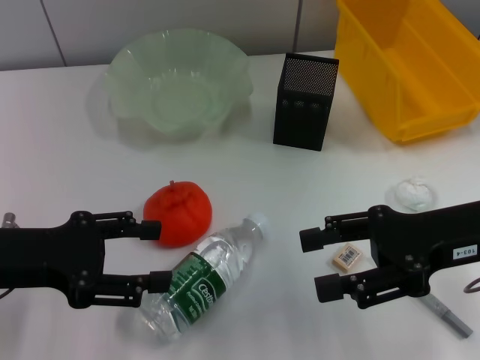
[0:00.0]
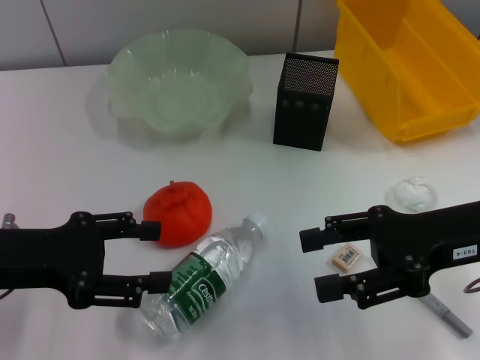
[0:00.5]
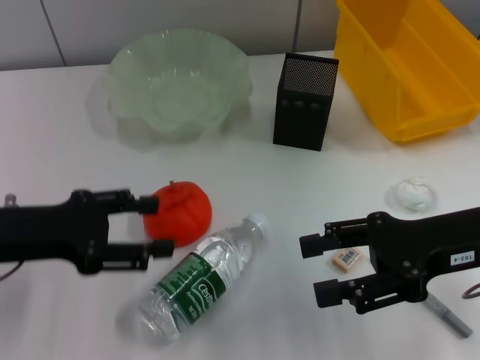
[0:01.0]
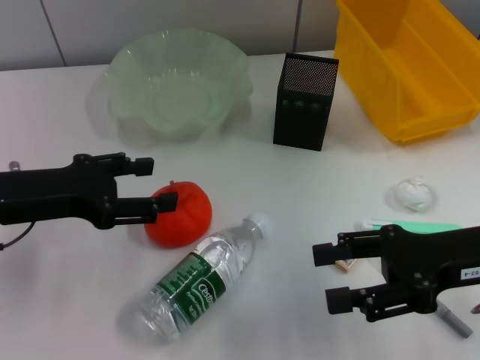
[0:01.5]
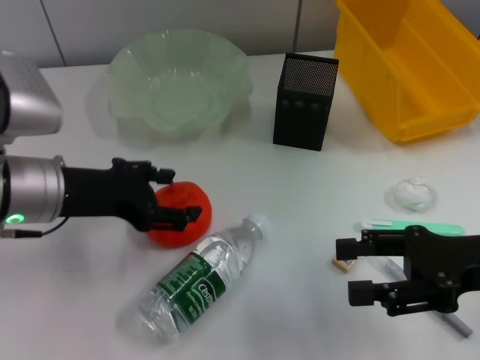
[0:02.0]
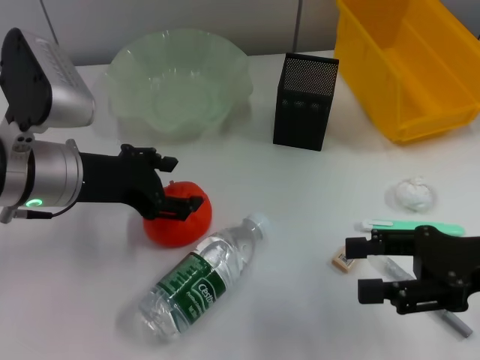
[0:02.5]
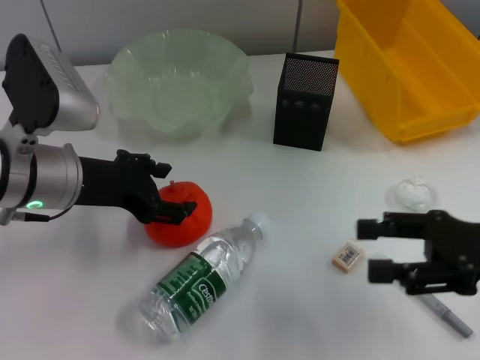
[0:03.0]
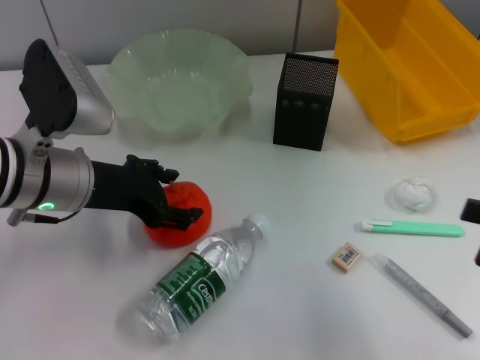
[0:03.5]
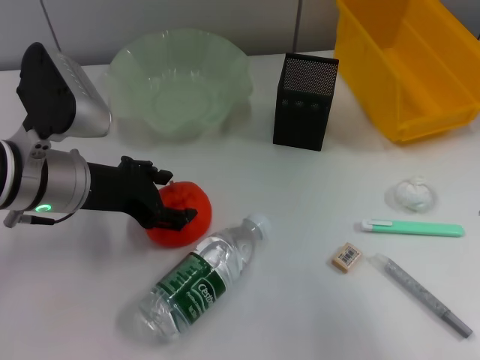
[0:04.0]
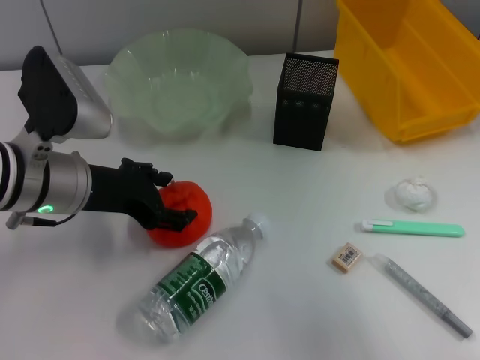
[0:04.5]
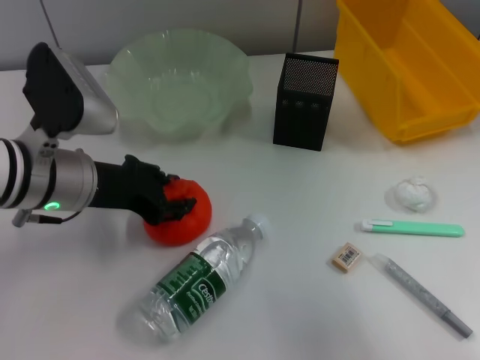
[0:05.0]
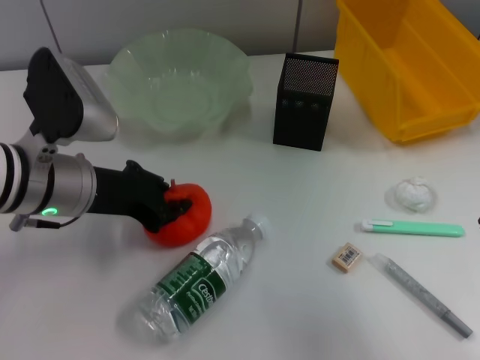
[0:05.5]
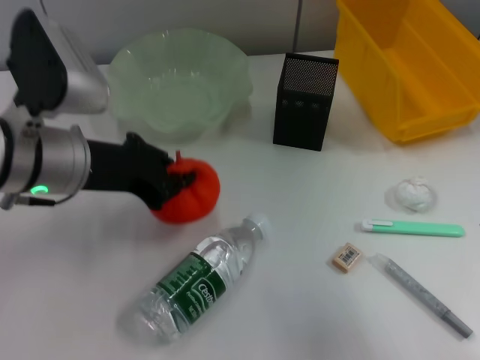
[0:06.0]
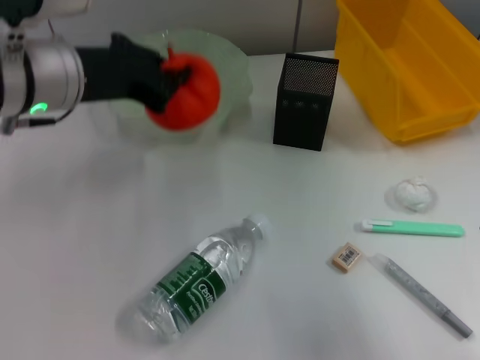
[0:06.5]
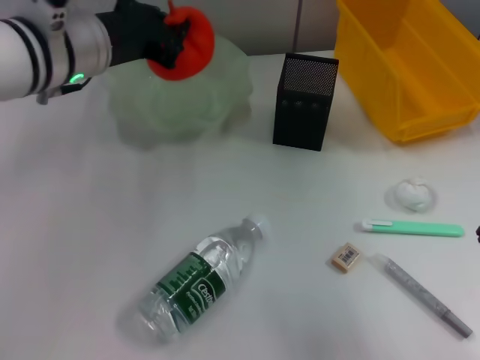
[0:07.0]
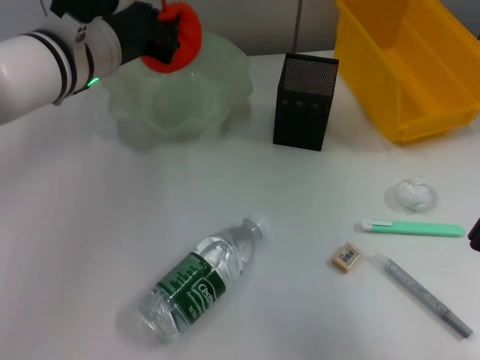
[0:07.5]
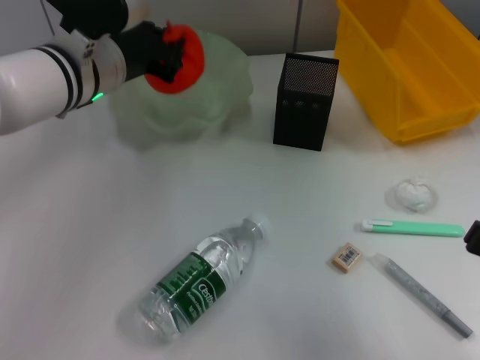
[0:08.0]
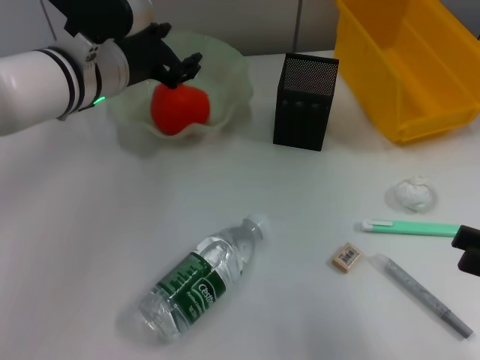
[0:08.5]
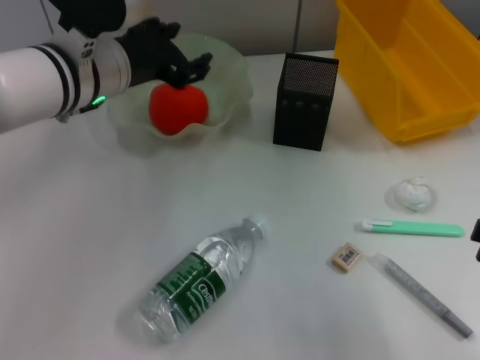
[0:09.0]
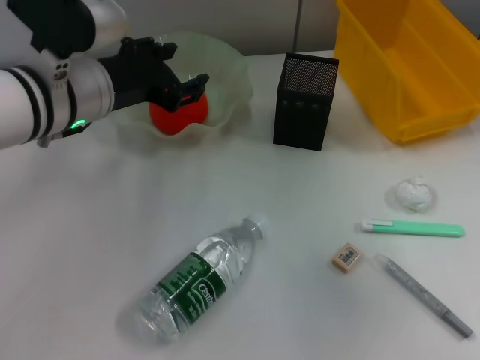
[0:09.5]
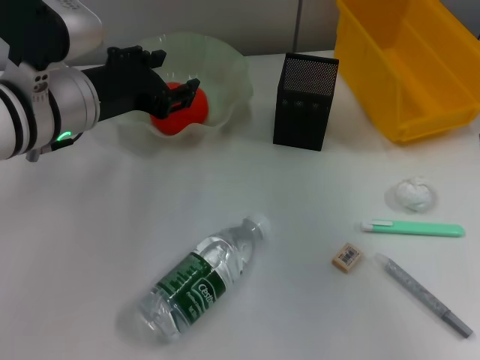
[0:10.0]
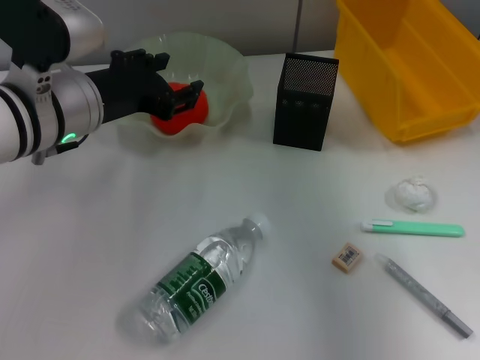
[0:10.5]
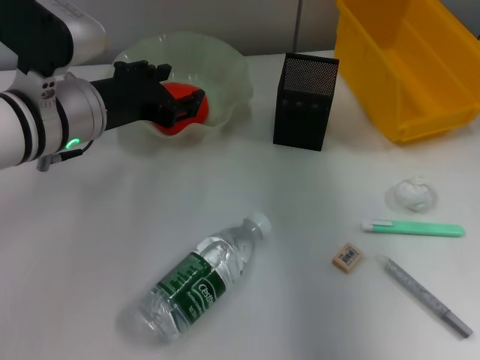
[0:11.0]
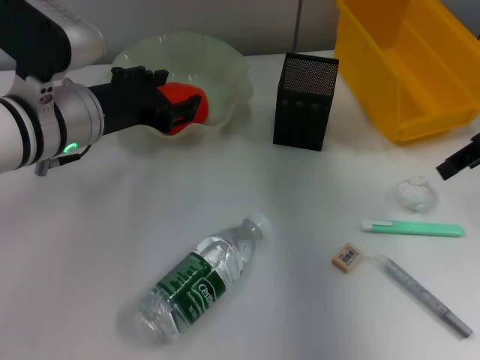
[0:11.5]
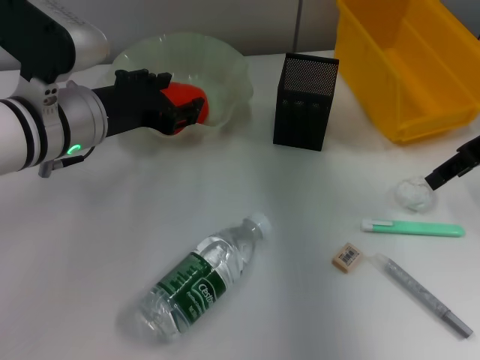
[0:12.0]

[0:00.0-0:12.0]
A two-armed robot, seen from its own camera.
Step, 0:00.0 to 0:05.0: Grab the orange with the left hand.
Step, 0:05.5 to 0:08.5: Place the orange into the fruit bowl with the left hand.
0:00.0 to 0:02.0: The left gripper moves to the right and forward, roughly 10 cm; the right gripper changes place by some 5 cm.
0:02.0 to 0:04.0: The right gripper shifts some 10 cm to the right and backward.
0:04.0 to 0:06.0: The right gripper closes, while the left gripper closes up.
0:06.0 to 0:08.0: The left gripper travels forward by approximately 10 cm.
0:08.0 to 0:10.0: The right gripper heads upward and forward, covering some 20 cm, and opens up. Meanwhile the left gripper goes some 5 cm backward, and opens up.
0:10.0 to 0:12.0: The right gripper moves forward, downward and to the left, about 15 cm.

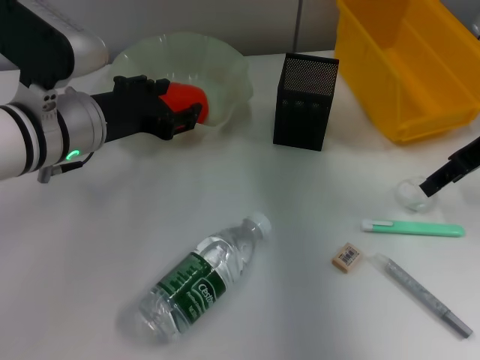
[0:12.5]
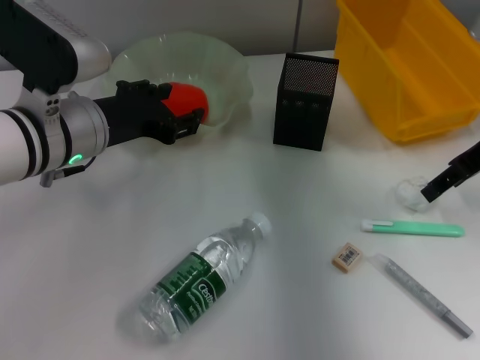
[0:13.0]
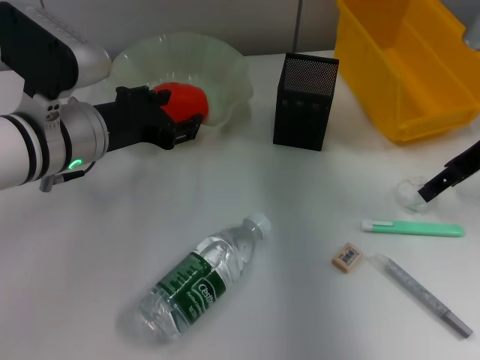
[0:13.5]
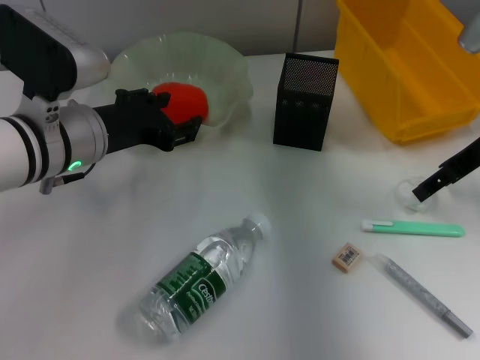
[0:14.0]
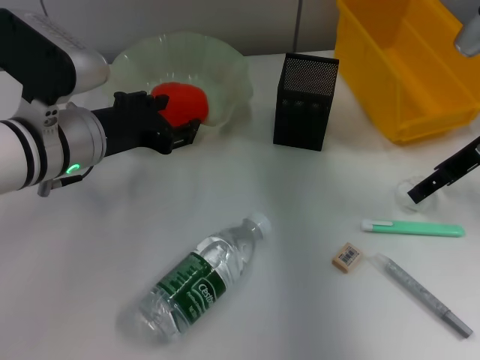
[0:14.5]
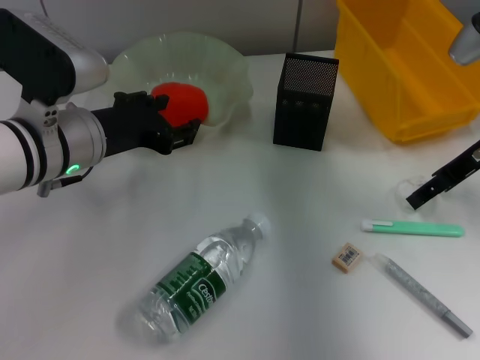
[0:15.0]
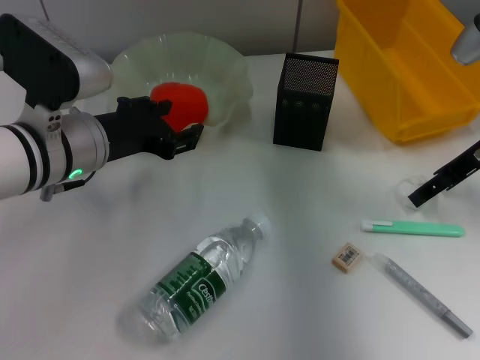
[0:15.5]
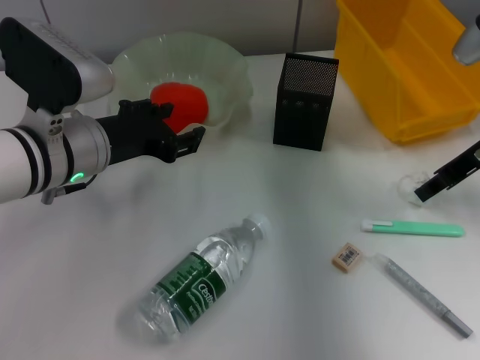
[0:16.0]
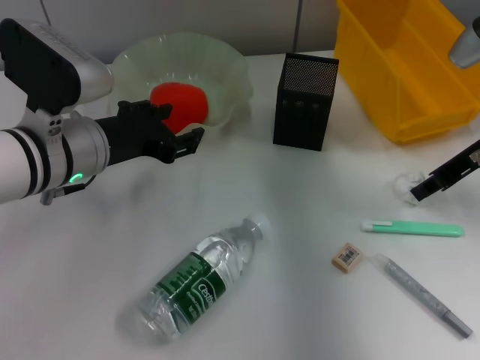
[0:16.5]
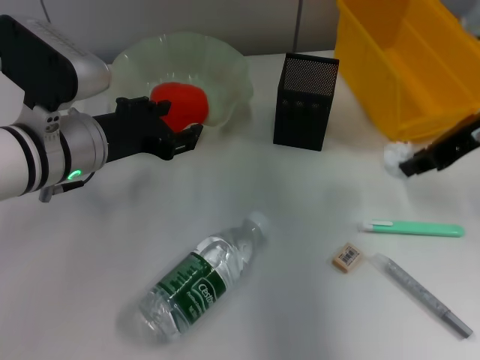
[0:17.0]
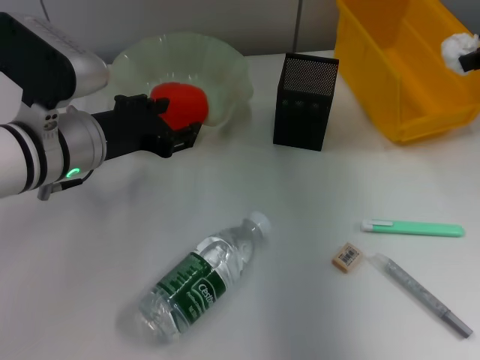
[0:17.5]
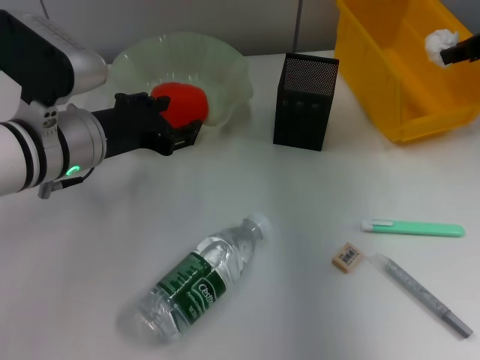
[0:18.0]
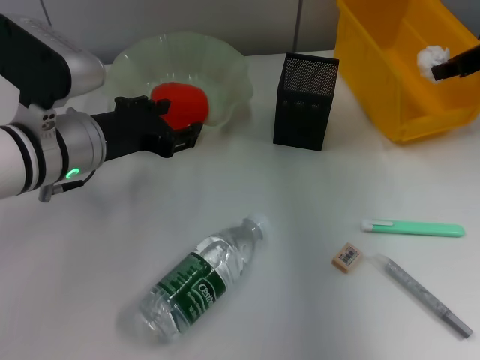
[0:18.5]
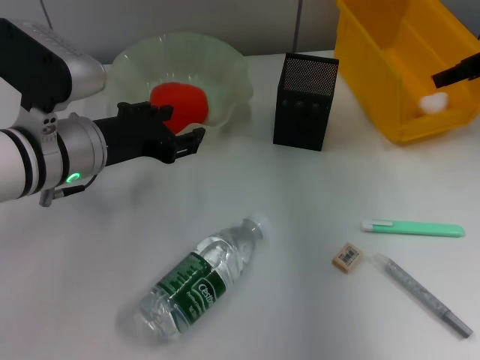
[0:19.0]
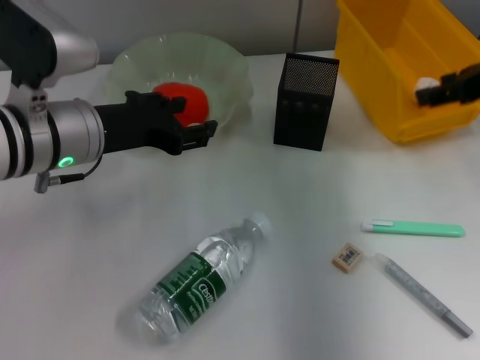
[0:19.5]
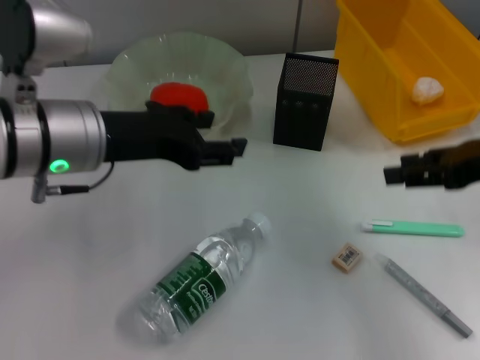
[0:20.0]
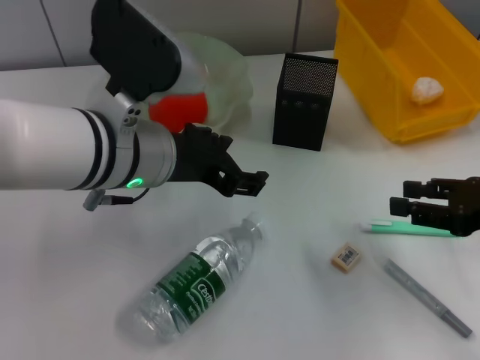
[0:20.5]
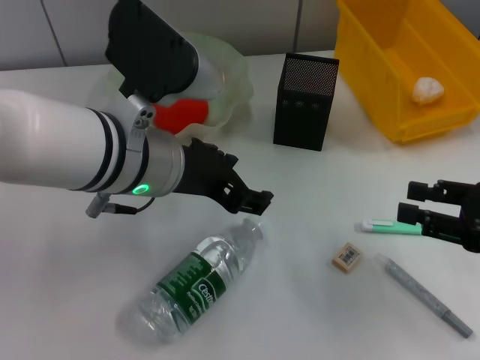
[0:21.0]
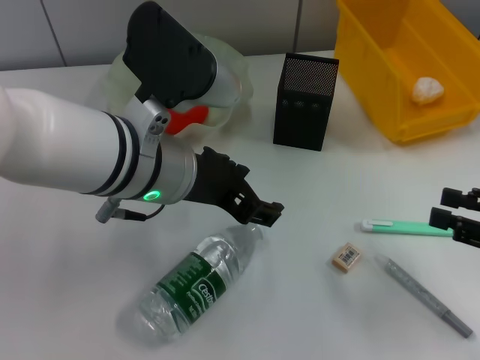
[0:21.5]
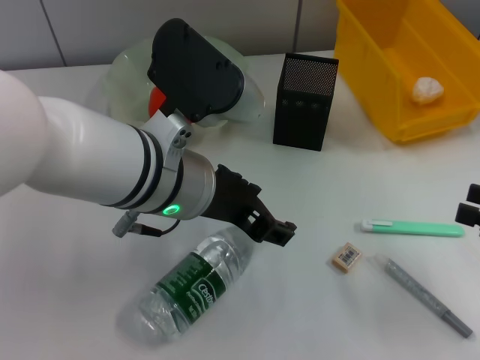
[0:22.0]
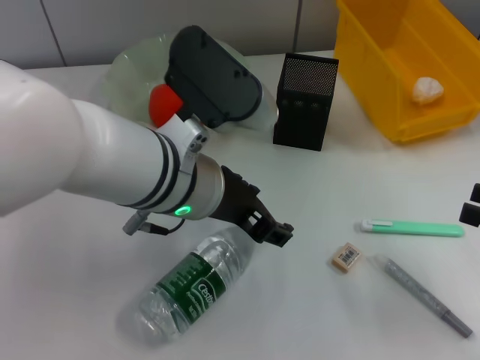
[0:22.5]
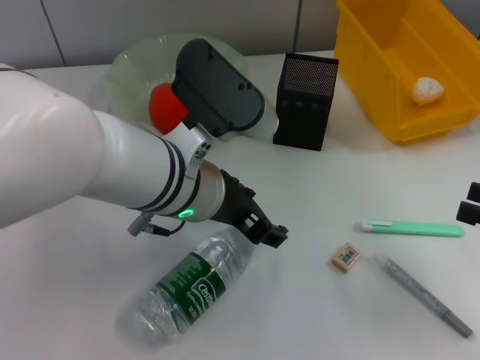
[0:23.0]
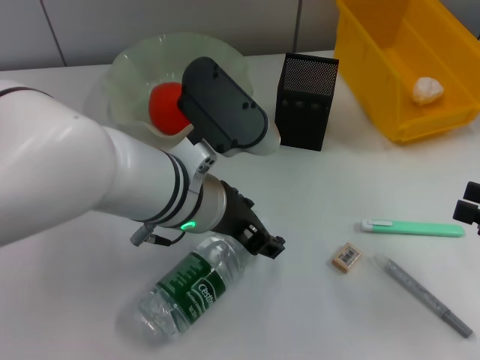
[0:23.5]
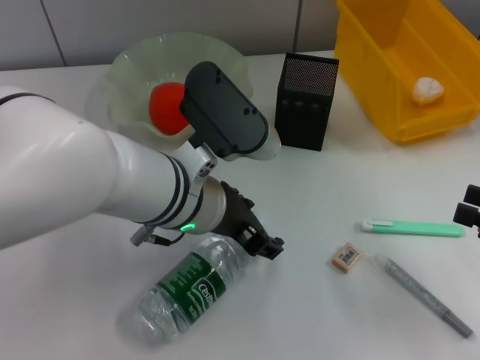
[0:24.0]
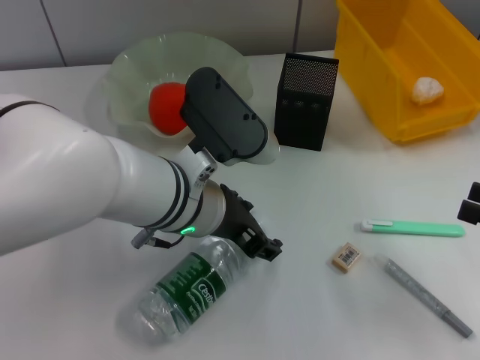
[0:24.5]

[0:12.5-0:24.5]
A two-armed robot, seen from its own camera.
Step, 0:12.5 to 0:16.0: Grab the paper ball with the right hand.
Step, 0:16.5 to 0:19.0: Place the paper ball into the trash can with the right hand.
0:12.5 to 0:14.5: There are only small adjustments of the grippers.
0:14.5 to 0:16.5: The right gripper closes its fingers.
0:16.5 to 0:18.5: The right gripper travels upward by approximately 5 cm.
0:18.5 to 0:20.5: The right gripper shifts about 20 cm backward and downward, and opens; the left gripper moves to the right, roughly 5 cm.
0:20.5 to 0:22.5: The right gripper is displaced backward by some 5 cm.
0:22.5 to 0:24.5: There are only small adjustments of the grippers.

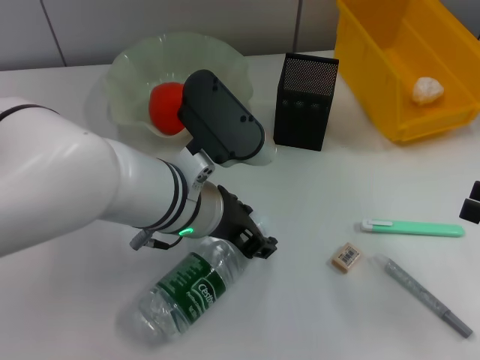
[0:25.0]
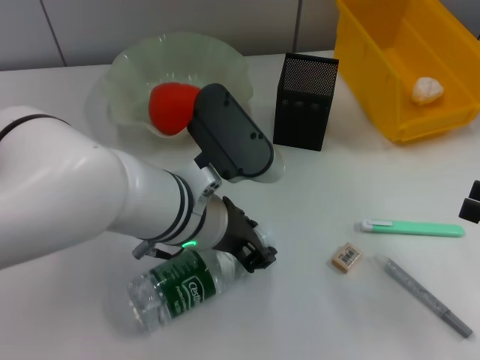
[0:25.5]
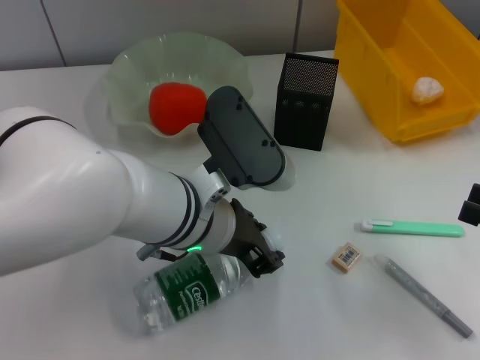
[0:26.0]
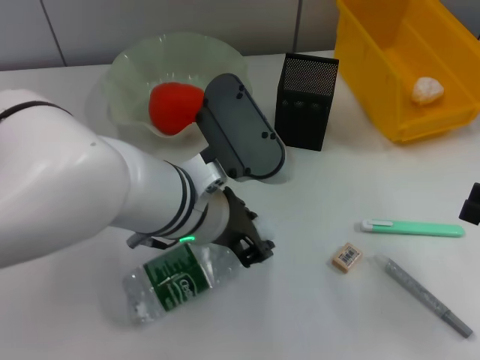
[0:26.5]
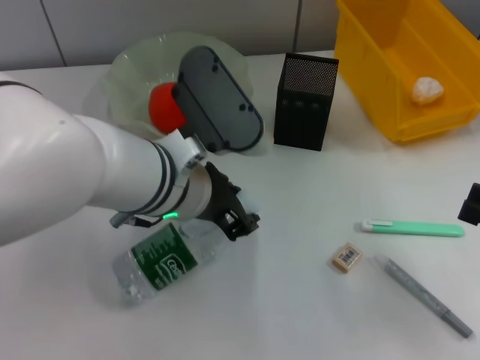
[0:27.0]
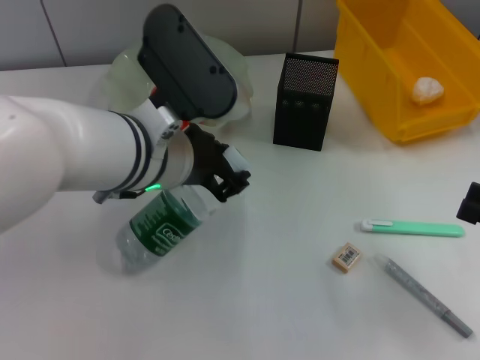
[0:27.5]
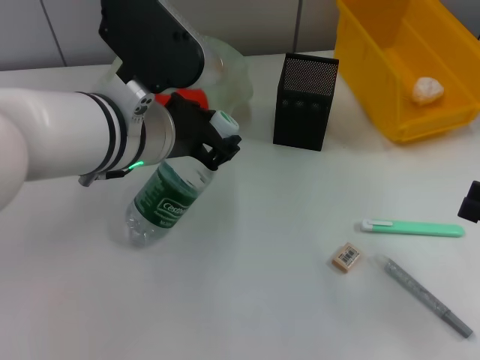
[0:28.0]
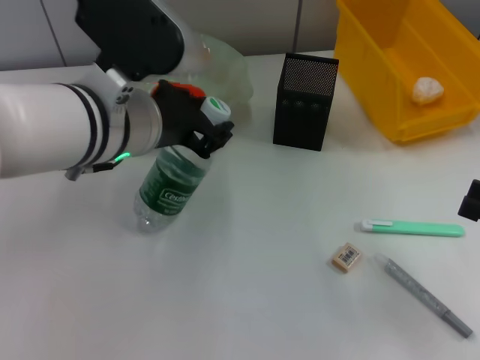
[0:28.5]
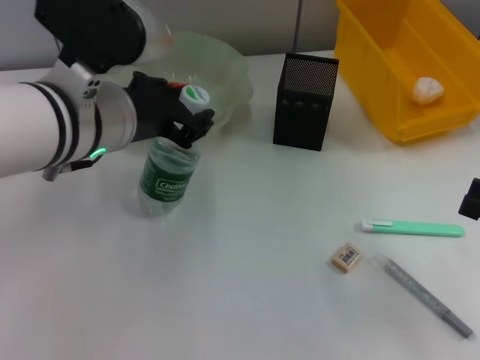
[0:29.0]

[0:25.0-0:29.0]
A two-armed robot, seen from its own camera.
0:25.0 to 0:27.0: There are only small adjustments of the grippers.
0:27.0 to 0:29.0: The left gripper shifts approximately 5 cm to the left.
